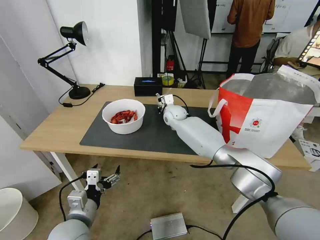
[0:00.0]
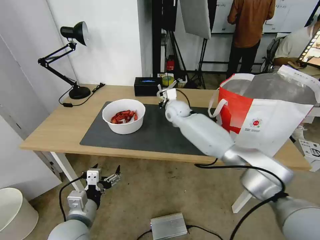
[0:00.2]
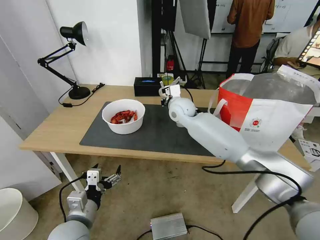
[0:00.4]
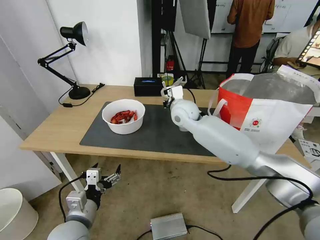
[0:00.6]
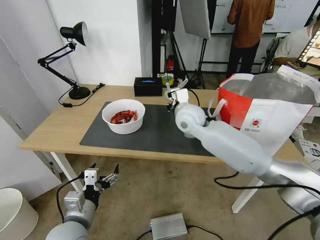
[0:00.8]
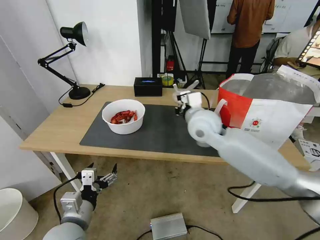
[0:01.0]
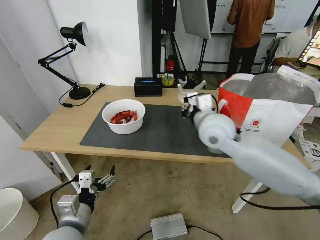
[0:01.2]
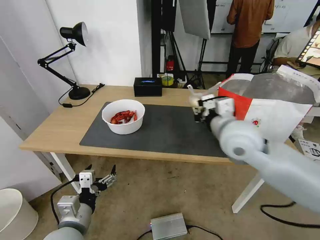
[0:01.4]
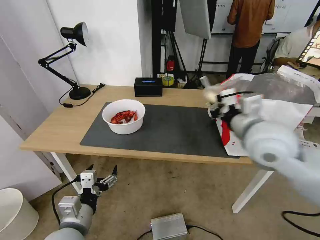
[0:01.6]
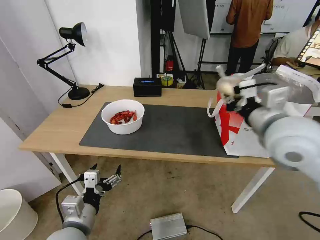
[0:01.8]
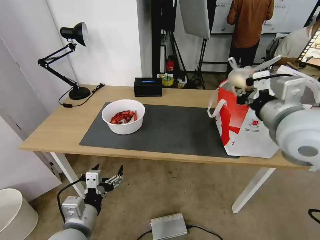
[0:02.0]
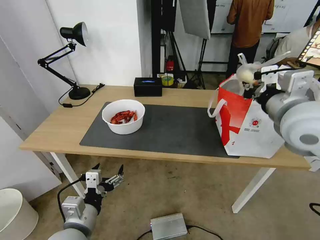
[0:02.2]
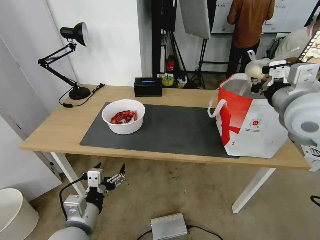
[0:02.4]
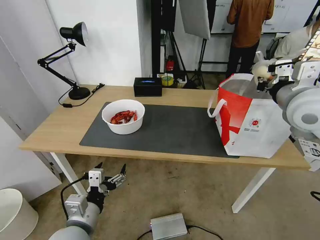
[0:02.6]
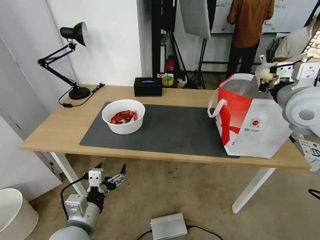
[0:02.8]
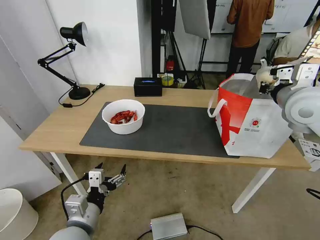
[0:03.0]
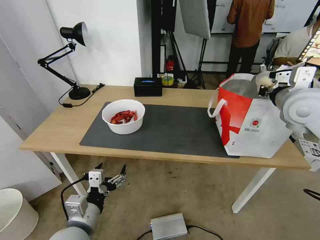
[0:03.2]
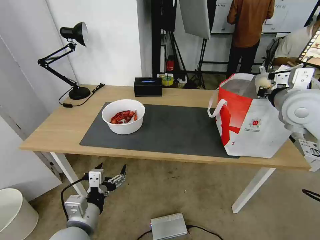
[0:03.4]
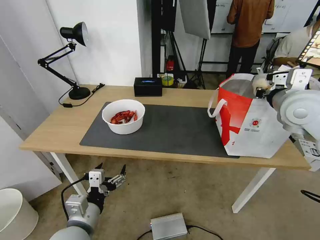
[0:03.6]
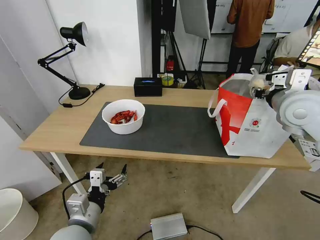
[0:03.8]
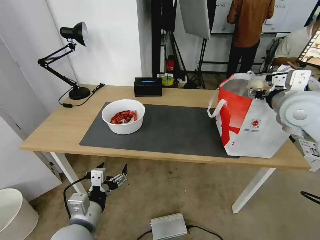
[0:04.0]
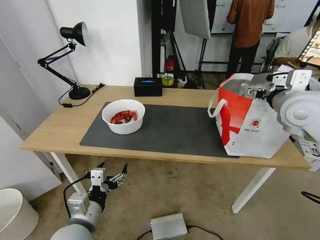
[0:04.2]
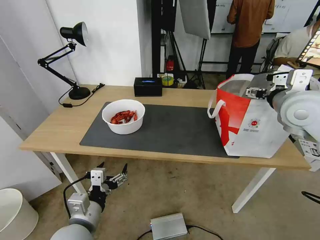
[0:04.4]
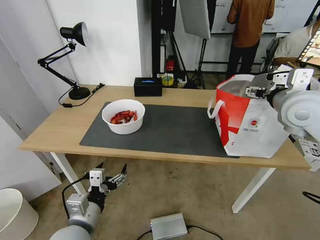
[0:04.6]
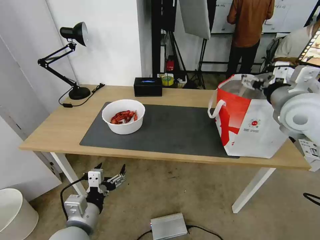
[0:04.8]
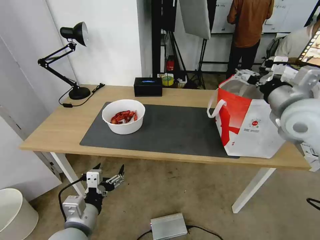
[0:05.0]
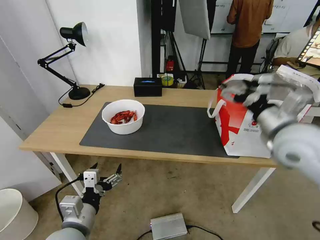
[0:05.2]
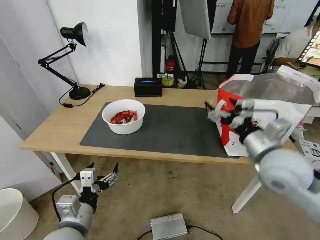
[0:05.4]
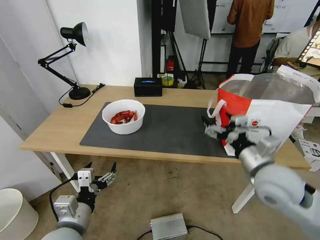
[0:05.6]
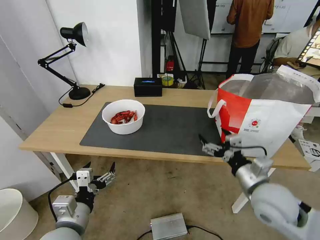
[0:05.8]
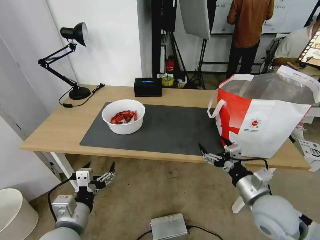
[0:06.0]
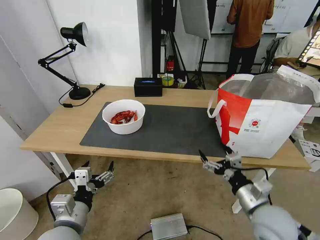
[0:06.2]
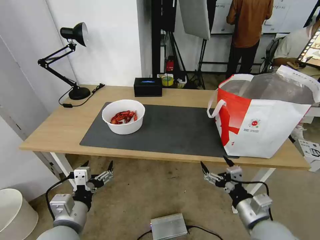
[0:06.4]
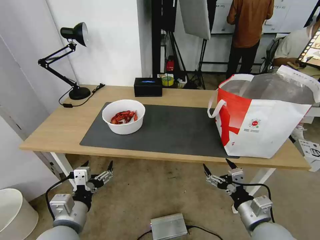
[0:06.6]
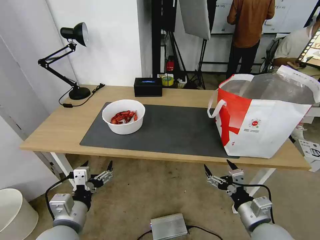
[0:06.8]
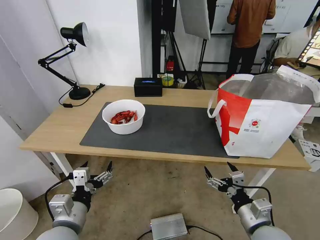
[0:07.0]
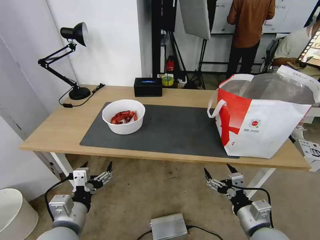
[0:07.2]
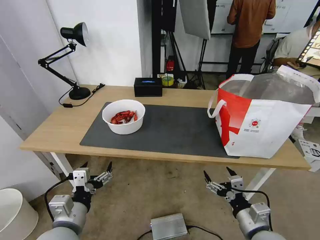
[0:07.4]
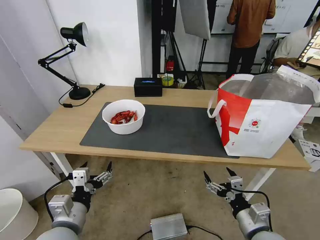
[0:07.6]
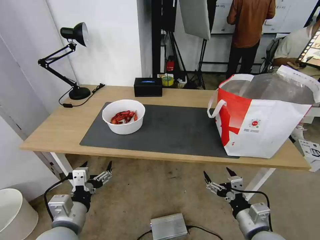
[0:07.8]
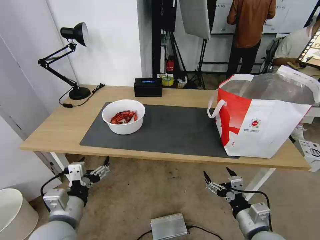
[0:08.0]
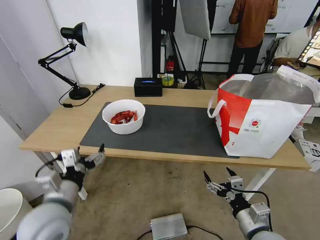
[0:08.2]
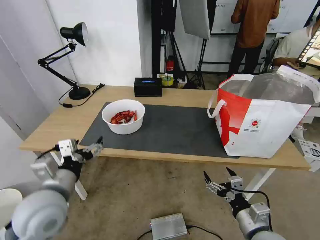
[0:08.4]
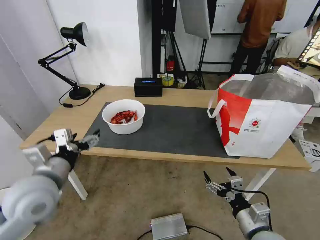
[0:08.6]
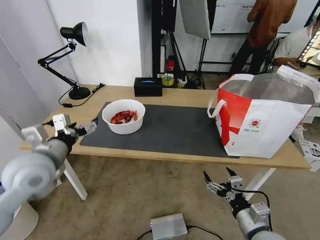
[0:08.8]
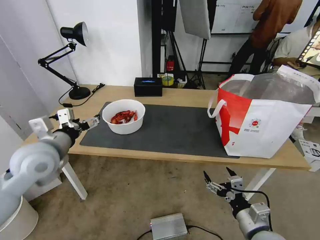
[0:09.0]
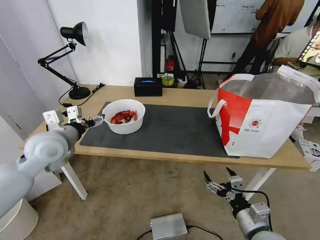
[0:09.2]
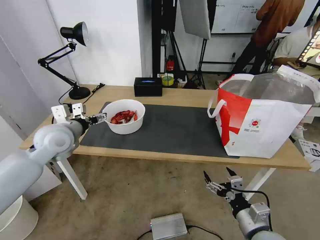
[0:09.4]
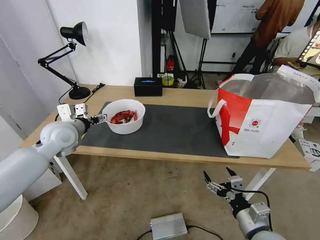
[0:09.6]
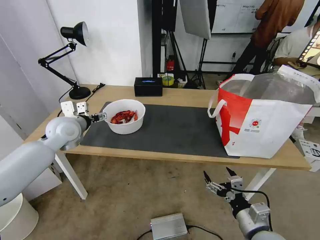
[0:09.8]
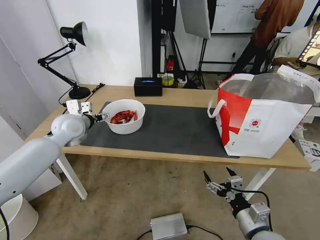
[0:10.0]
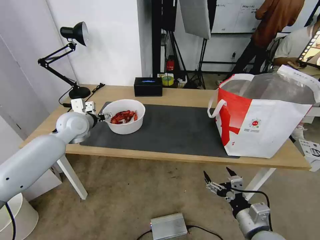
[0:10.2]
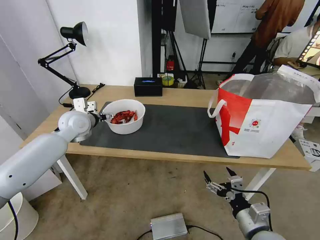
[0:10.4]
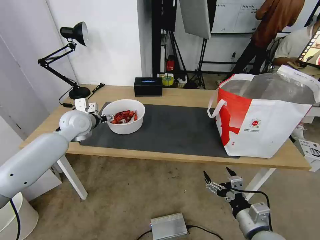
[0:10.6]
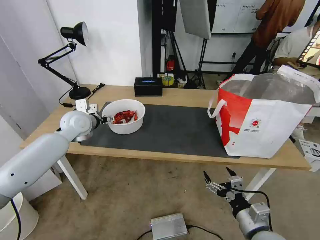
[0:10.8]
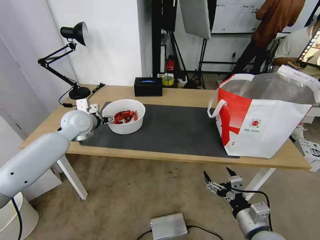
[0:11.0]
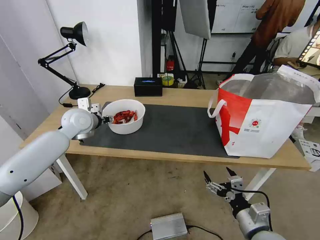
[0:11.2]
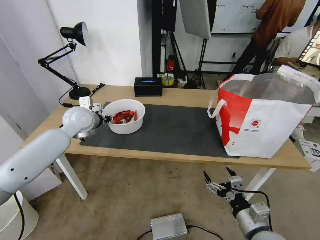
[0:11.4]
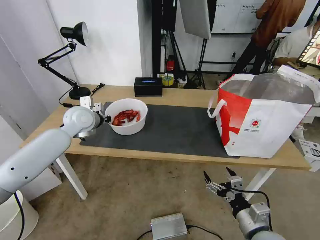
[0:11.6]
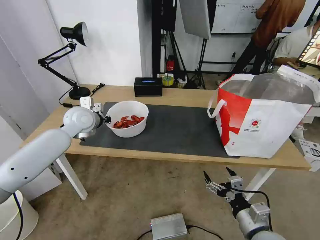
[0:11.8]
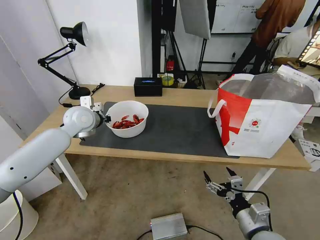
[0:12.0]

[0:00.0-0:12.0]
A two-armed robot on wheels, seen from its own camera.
Task of the whole recording: Pick up the trash from the table and place it into the takeout bag.
0:00.0 to 0:01.6: The right gripper shifts roughly 35 cm backward, upward and to the right.
0:01.6 to 0:03.0: The right gripper heads to the right and forward, covering some 15 cm.
0:03.0 to 0:04.4: The right gripper opens its fingers.
0:04.4 to 0:06.0: The right gripper moves downward and backward, approximately 25 cm.
0:06.0 to 0:07.6: The right gripper is displaced backward and downward by roughly 10 cm.
0:07.6 to 0:09.0: The left gripper moves forward, upward and to the left, some 20 cm.
0:09.0 to 0:10.4: The left gripper travels forward by about 15 cm.
0:10.4 to 0:12.0: The left gripper closes its fingers.

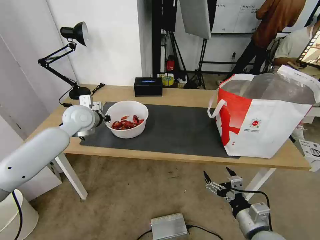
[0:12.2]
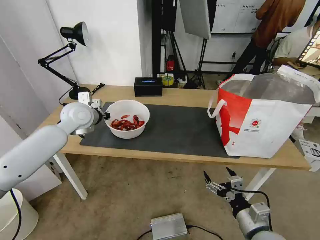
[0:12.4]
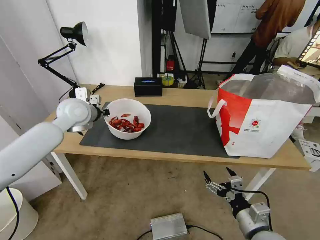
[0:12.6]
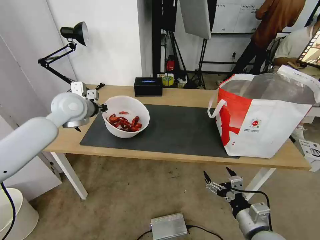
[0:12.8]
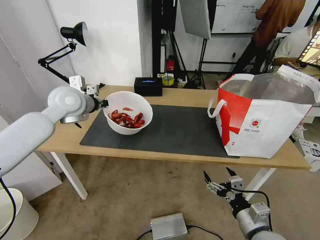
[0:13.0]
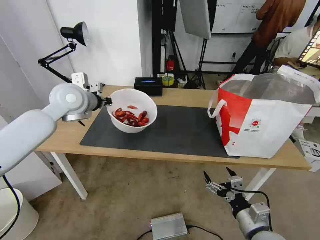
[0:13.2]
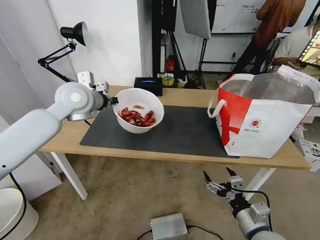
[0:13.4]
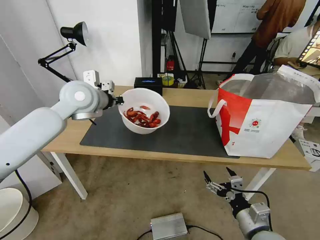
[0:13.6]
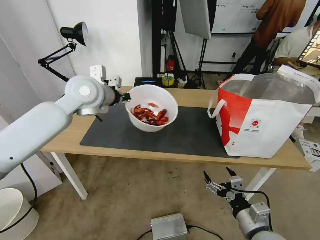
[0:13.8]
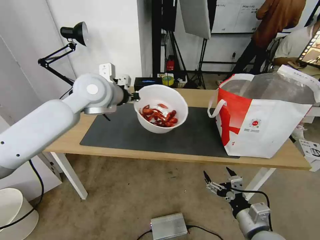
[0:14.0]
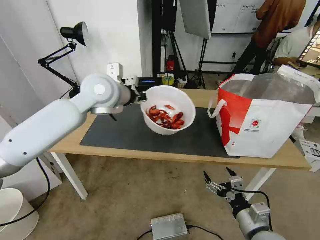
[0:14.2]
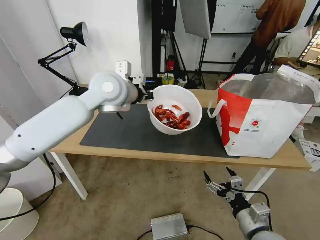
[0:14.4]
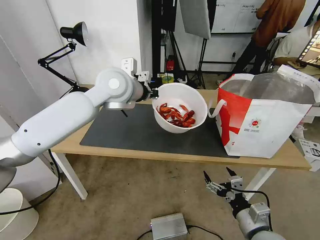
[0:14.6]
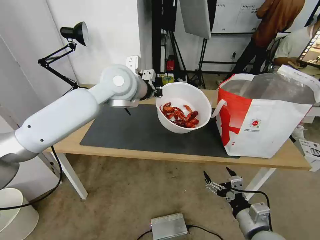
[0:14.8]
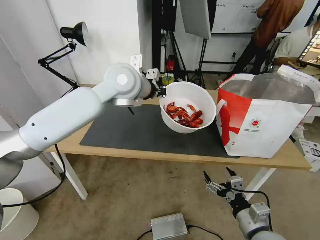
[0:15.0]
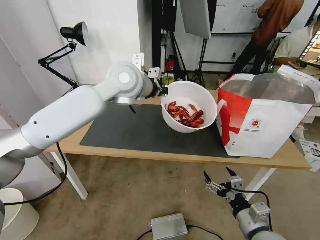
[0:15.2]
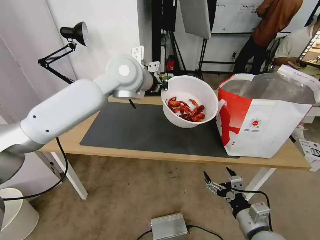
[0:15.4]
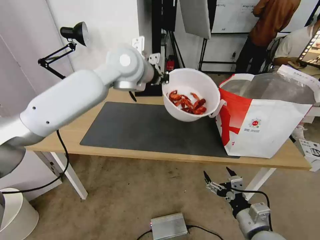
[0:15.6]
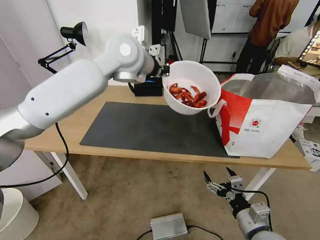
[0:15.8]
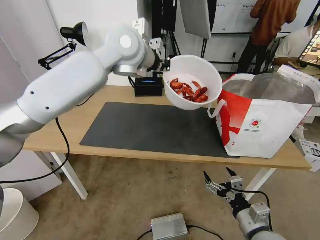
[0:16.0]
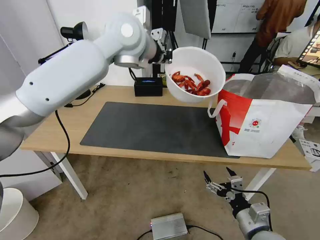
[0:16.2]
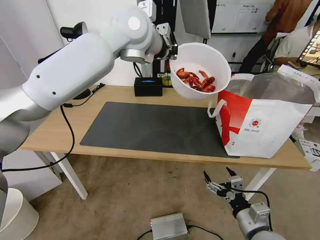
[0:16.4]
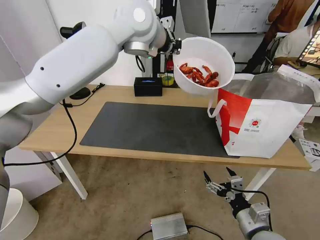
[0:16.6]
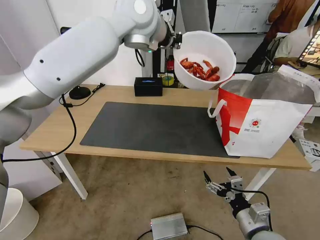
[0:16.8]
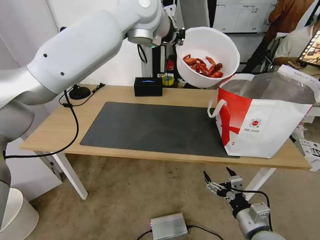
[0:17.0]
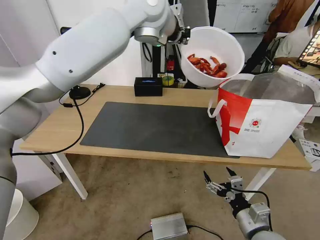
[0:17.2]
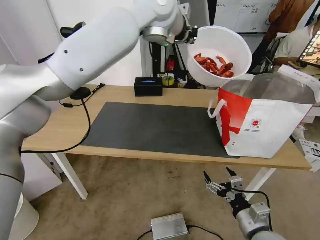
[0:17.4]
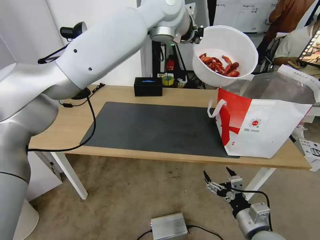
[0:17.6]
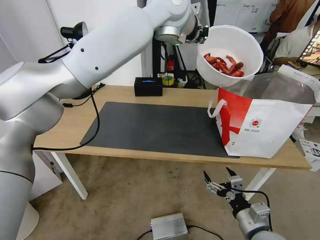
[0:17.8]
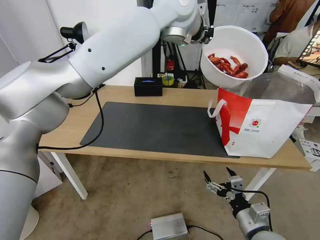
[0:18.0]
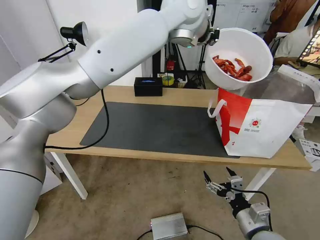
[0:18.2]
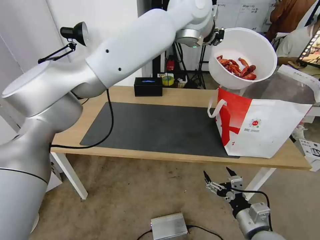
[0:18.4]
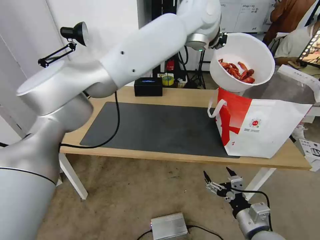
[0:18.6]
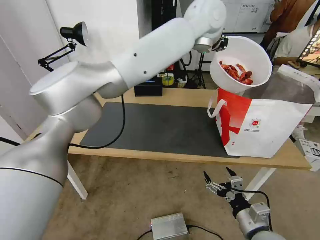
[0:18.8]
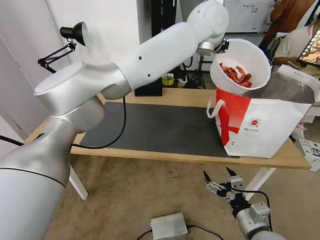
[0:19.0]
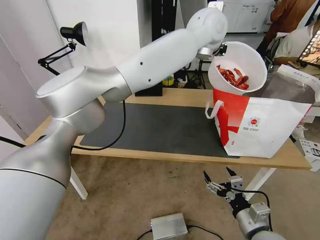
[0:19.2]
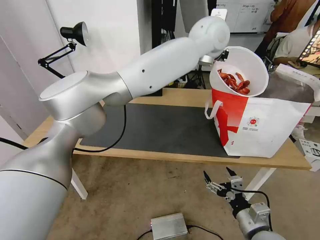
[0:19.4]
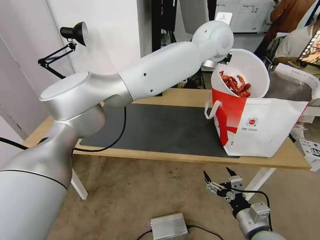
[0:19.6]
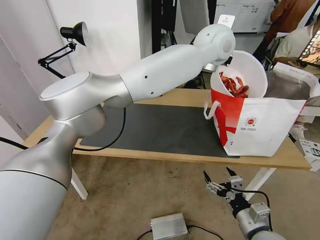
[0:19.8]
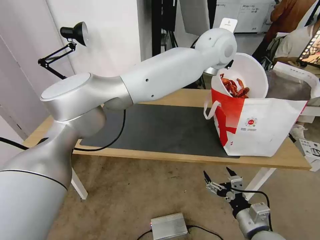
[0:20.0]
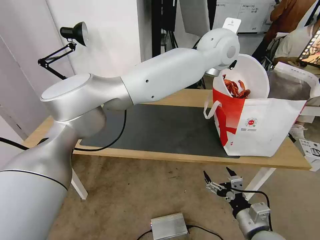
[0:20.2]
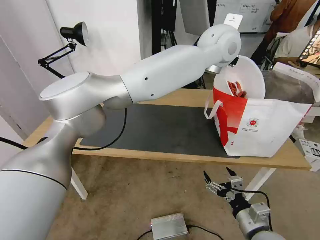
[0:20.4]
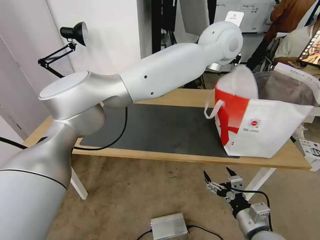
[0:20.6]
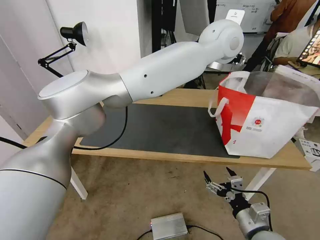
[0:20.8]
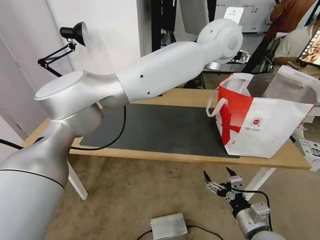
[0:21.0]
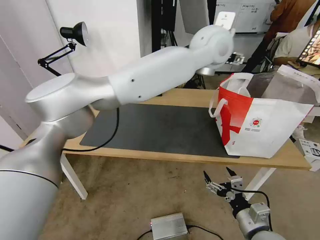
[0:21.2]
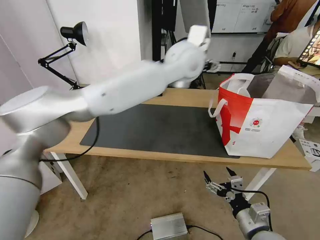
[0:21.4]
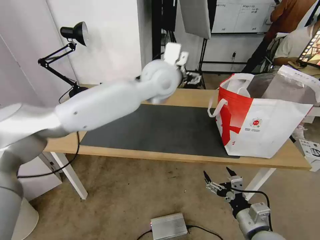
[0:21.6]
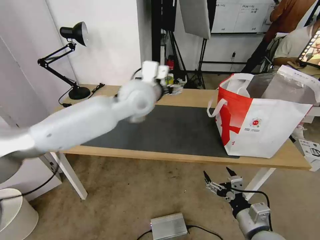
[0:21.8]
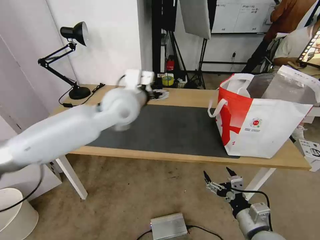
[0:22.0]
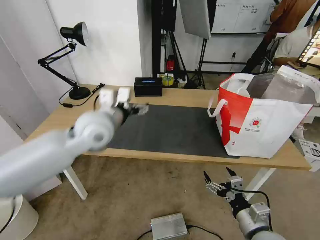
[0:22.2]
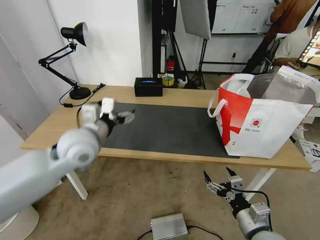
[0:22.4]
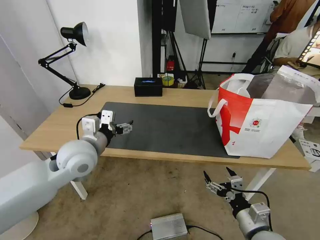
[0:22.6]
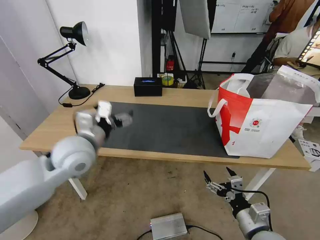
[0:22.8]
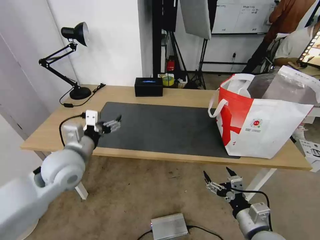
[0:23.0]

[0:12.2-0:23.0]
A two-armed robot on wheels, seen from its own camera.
Task of the whole recording: Pick up the trash from the table and place it into the takeout bag.
0:12.2 to 0:13.8: The left gripper goes roughly 15 cm upward and to the right.
0:13.8 to 0:15.2: The left gripper moves to the right, roughly 10 cm.
0:15.2 to 0:16.8: The left gripper travels upward by some 15 cm.
0:16.8 to 0:18.4: The left gripper goes roughly 10 cm to the right.
0:18.4 to 0:20.0: The left gripper heads downward and to the right, covering some 10 cm.
0:20.0 to 0:21.4: The left gripper shifts roughly 5 cm to the left, and opens up.
0:21.4 to 0:23.0: The left gripper shifts roughly 40 cm to the left, downward and backward.
